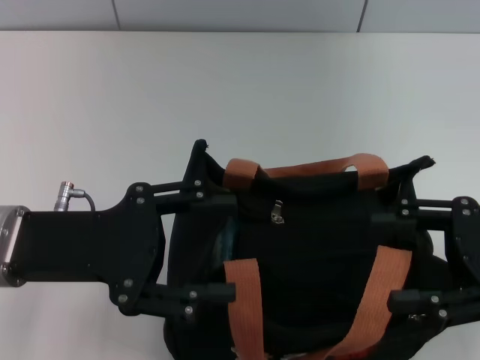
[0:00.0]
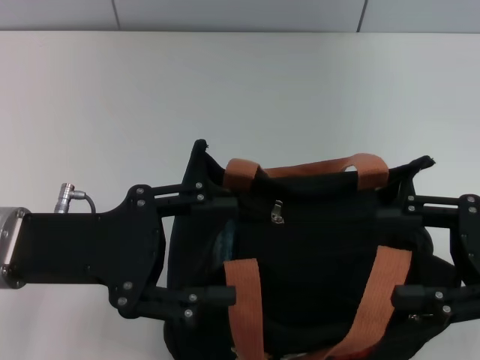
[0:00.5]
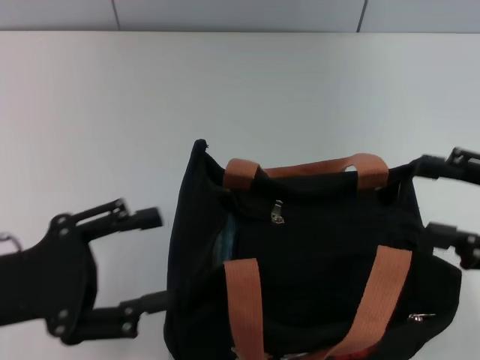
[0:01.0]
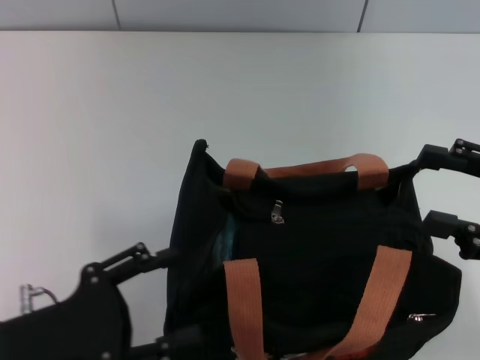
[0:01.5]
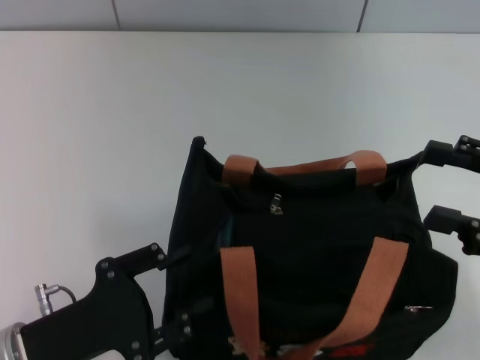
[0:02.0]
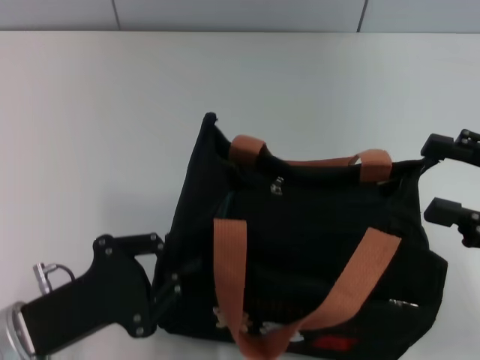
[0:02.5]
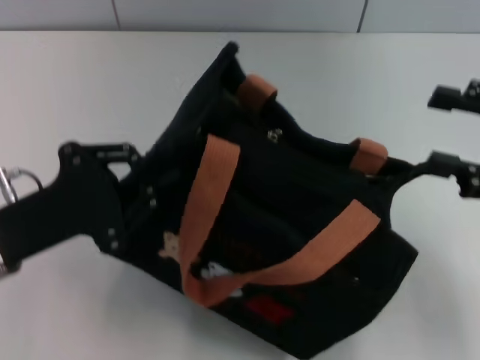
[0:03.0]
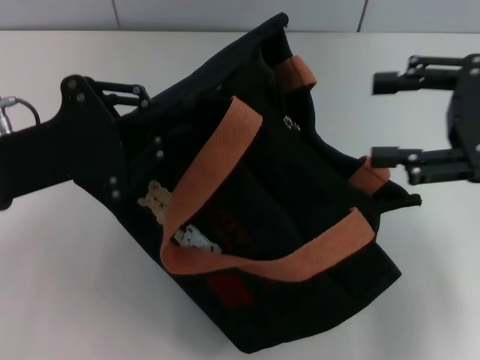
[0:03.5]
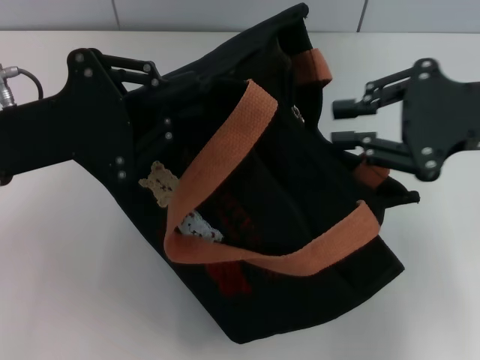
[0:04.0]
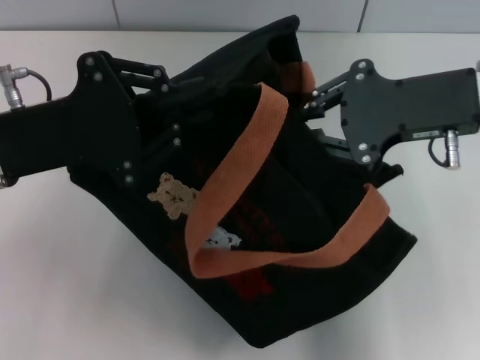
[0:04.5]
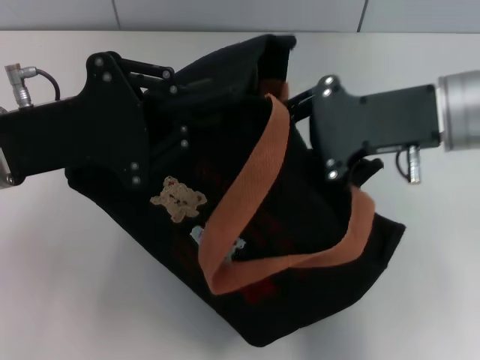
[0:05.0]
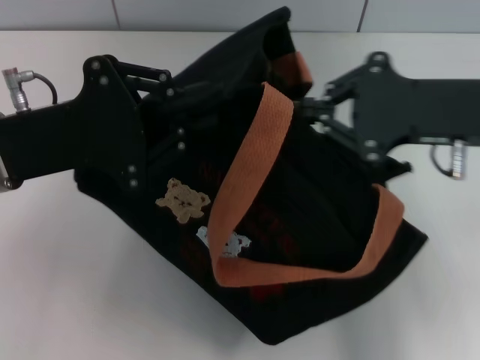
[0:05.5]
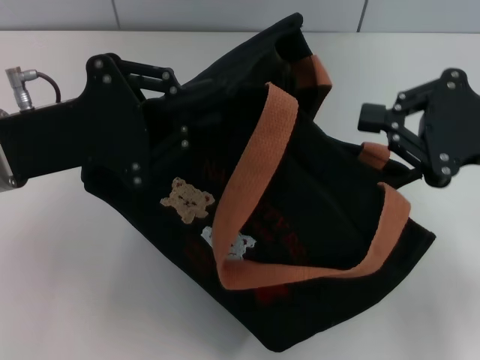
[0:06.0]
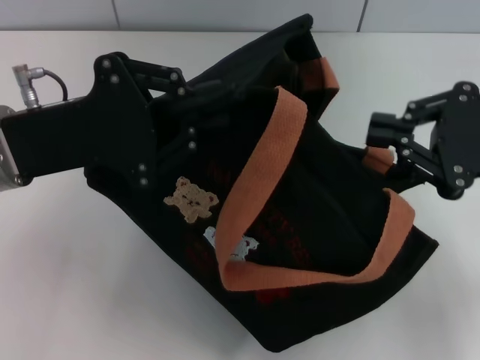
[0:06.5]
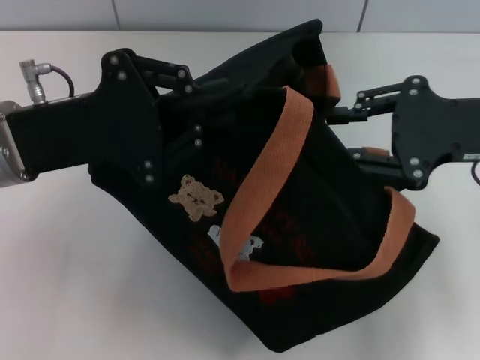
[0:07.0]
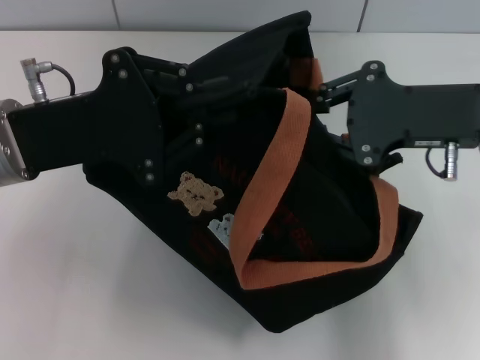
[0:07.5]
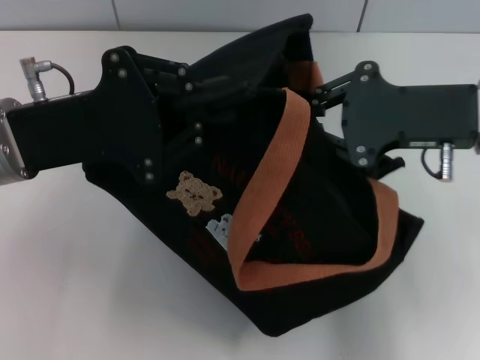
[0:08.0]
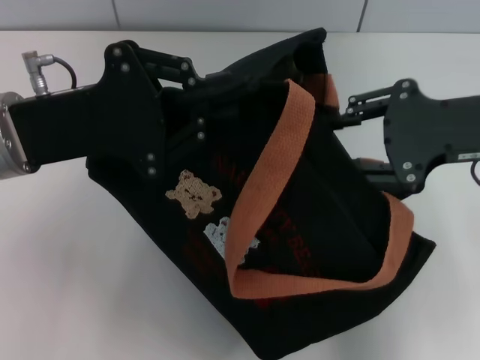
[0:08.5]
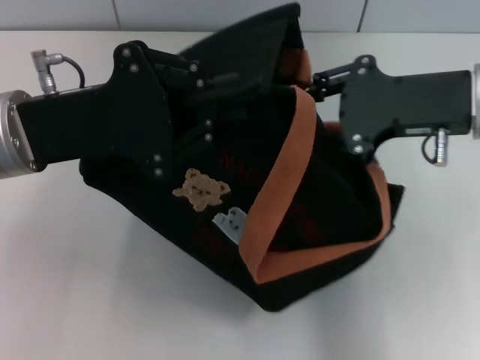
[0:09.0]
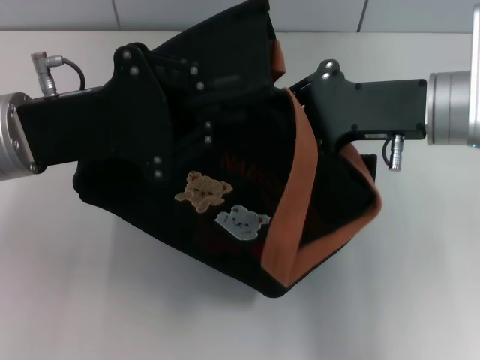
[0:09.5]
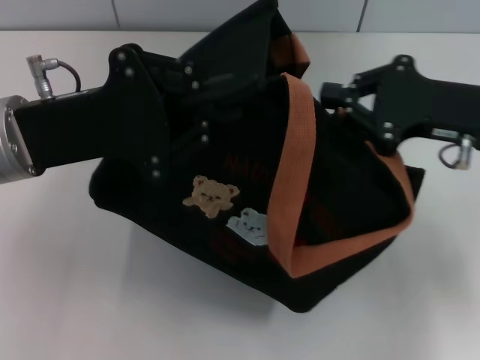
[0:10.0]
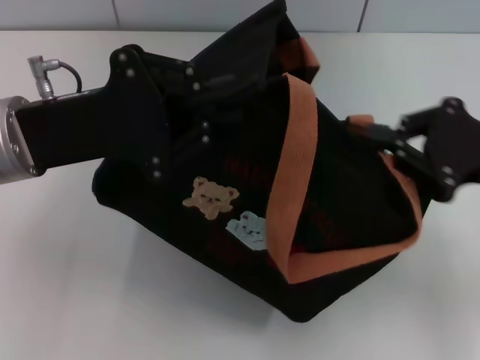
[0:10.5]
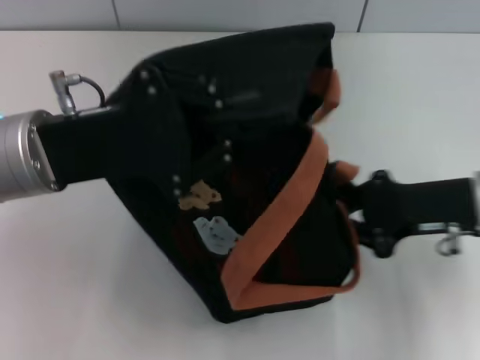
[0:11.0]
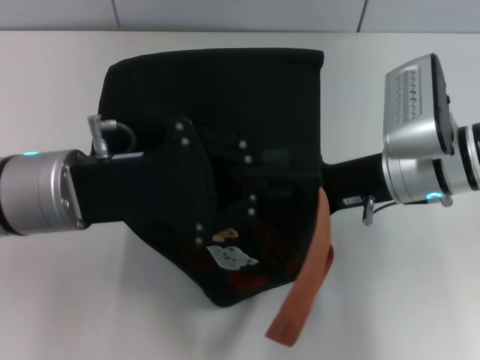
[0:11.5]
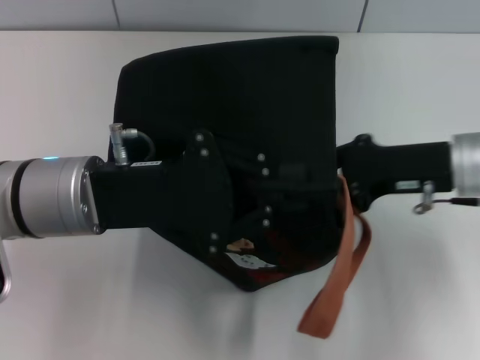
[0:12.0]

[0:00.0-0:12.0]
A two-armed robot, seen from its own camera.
0:00.0 to 0:02.0: The left gripper shifts some 15 cm downward and backward.
0:02.0 to 0:04.0: The right gripper is displaced upward, forward and to the left by roughly 10 cm. Meanwhile the left gripper is displaced upward and forward by some 20 cm, and closes.
0:04.0 to 0:06.0: The right gripper moves roughly 5 cm to the left and comes back, and closes its fingers.
0:06.0 to 0:08.0: The right gripper moves to the left, about 5 cm.
0:08.0 to 0:10.0: The right gripper opens, then closes once more.
0:10.0 to 0:12.0: The right gripper swings left and right, roughly 10 cm each way, with 2 reversals. Meanwhile the left gripper ends up roughly 5 cm from where it was.

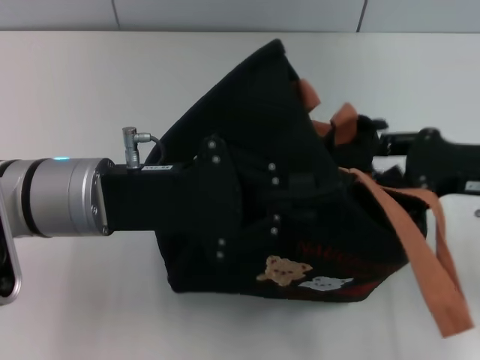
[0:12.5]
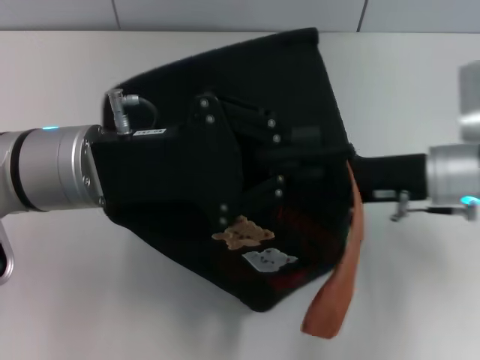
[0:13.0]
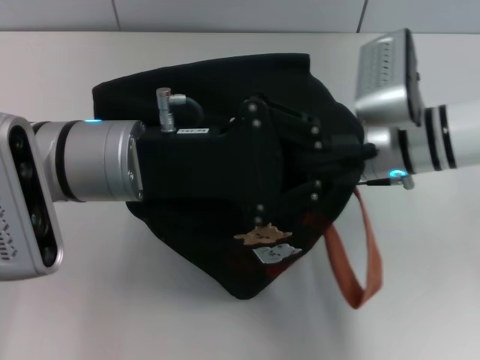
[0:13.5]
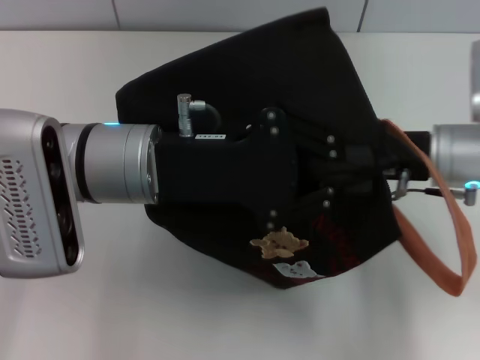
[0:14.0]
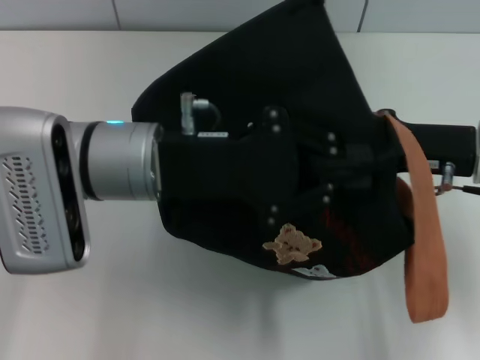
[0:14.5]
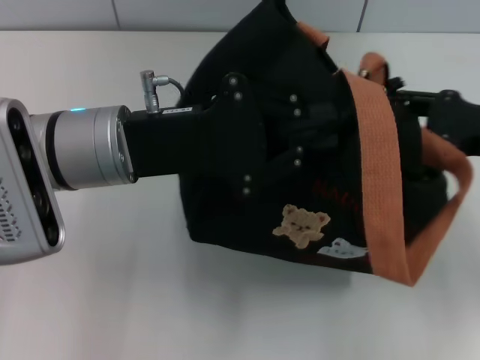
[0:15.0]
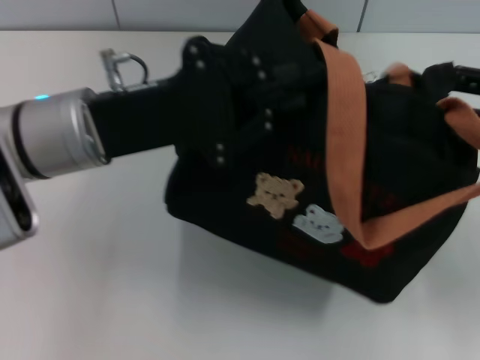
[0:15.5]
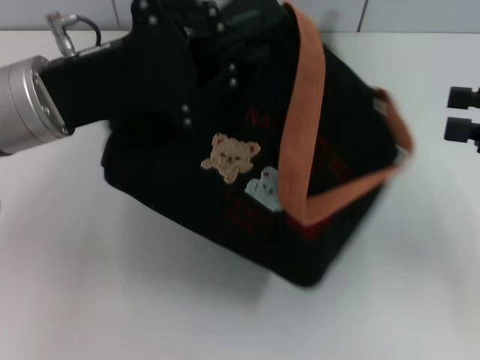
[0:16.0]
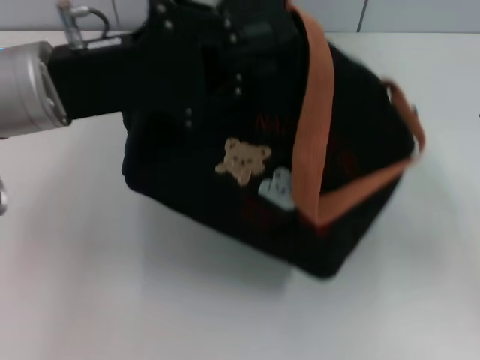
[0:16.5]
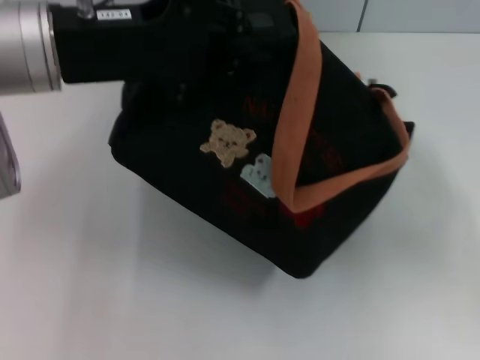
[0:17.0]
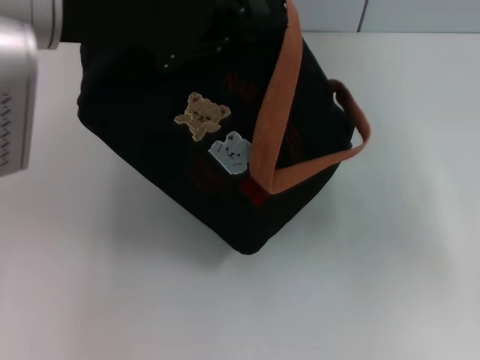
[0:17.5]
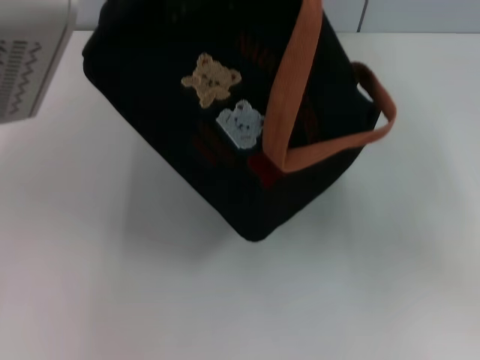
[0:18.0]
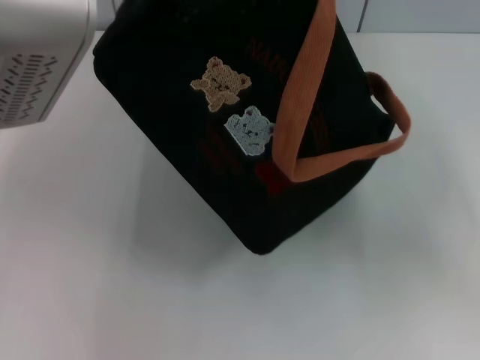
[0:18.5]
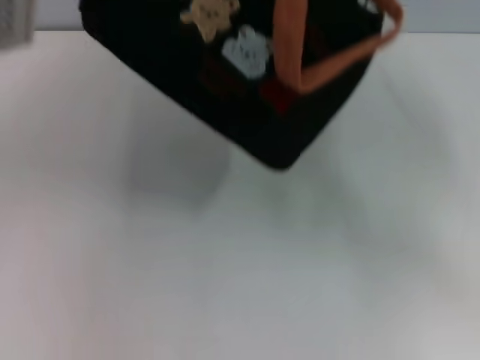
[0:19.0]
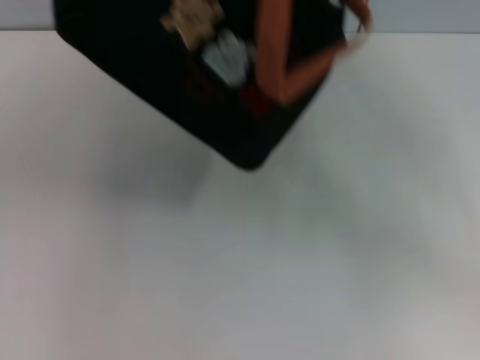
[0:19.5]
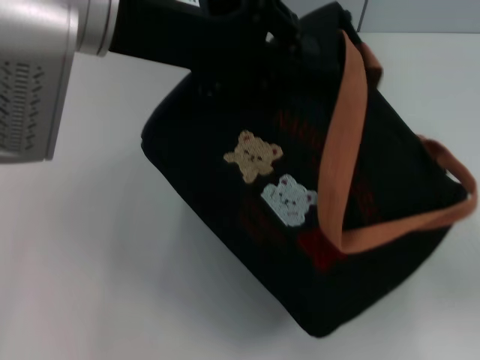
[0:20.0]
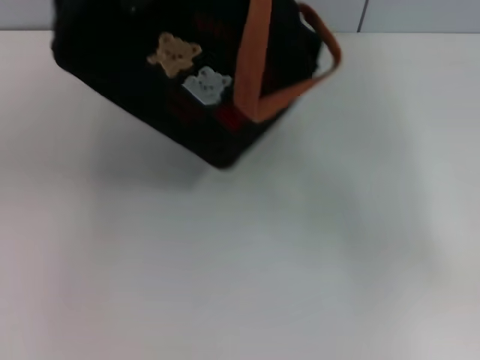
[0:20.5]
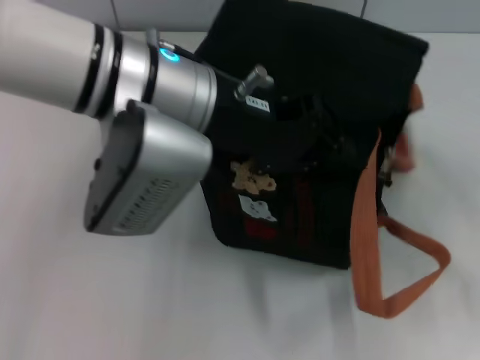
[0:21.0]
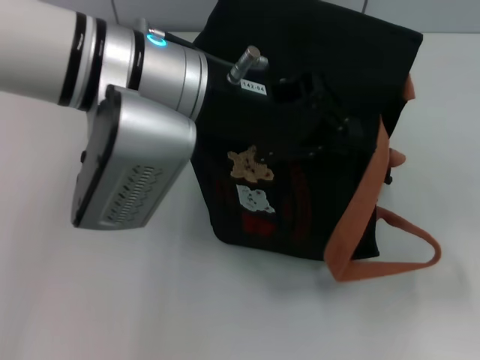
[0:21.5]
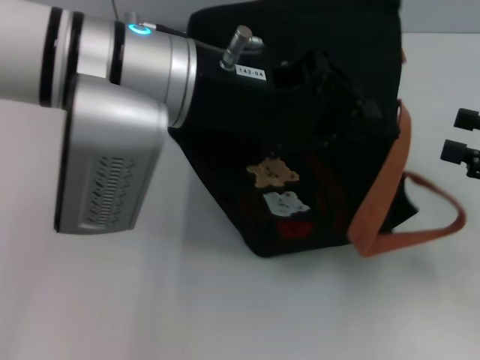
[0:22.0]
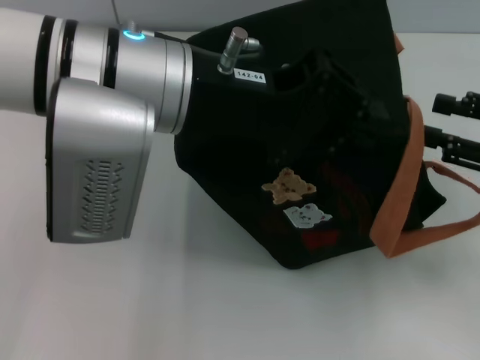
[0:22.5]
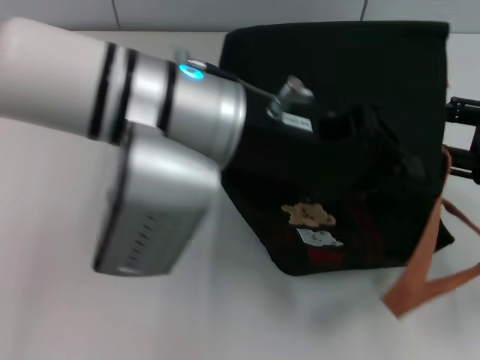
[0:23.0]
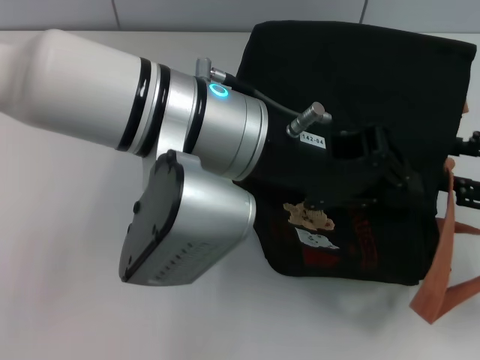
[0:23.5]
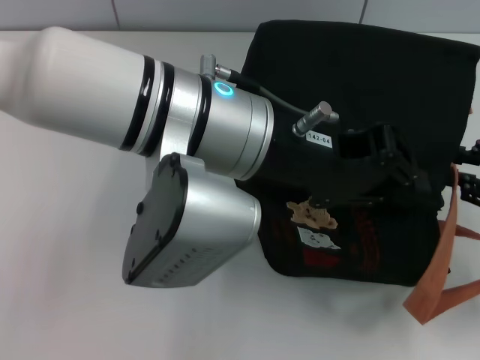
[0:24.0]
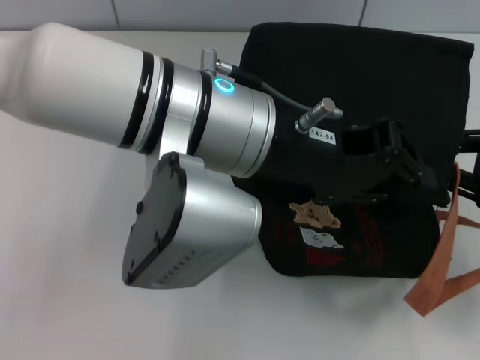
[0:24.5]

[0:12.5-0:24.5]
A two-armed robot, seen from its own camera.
0:12.5 to 0:14.5: The right gripper travels to the left and back again, some 15 cm each way.
0:14.5 to 0:16.5: The right gripper moves to the right and upward, roughly 15 cm; the left gripper goes approximately 5 cm to the left.
0:16.5 to 0:18.5: The left gripper travels upward and to the right by roughly 15 cm.
0:18.5 to 0:20.5: The left gripper swings left and right, approximately 5 cm each way, with 2 reversals.
0:20.5 to 0:22.5: The left gripper shifts about 10 cm to the right and downward. Meanwhile the right gripper changes place by approximately 5 cm.
0:22.5 to 0:24.5: The left gripper changes place by roughly 5 cm. The right gripper closes.

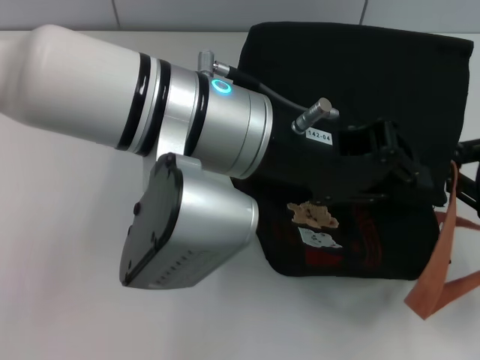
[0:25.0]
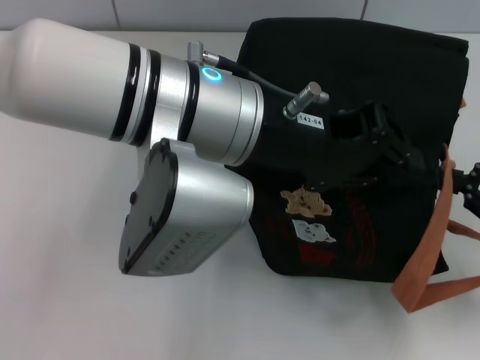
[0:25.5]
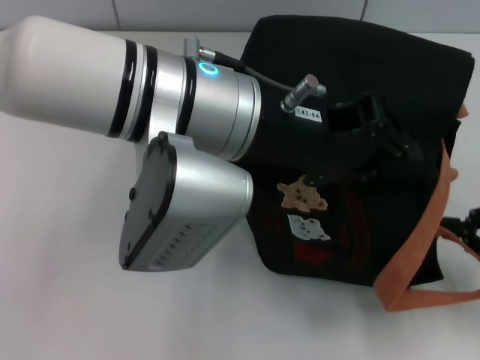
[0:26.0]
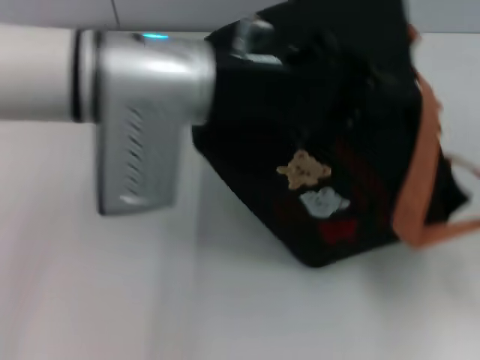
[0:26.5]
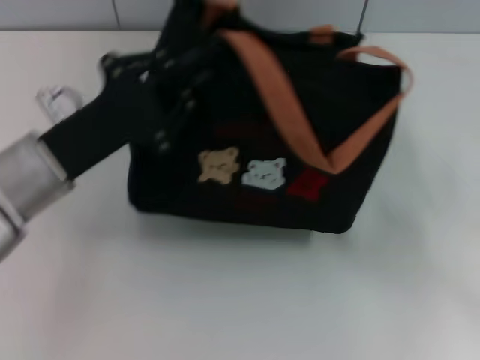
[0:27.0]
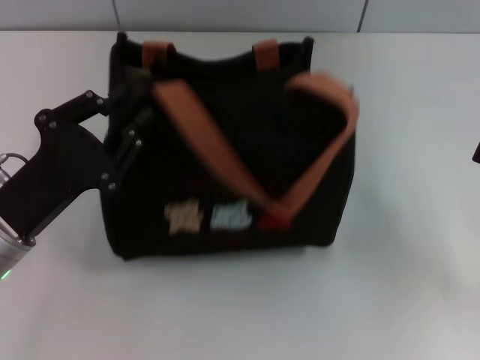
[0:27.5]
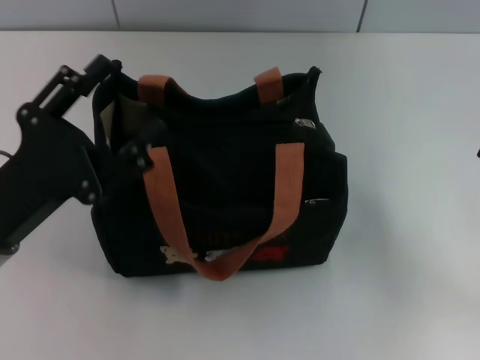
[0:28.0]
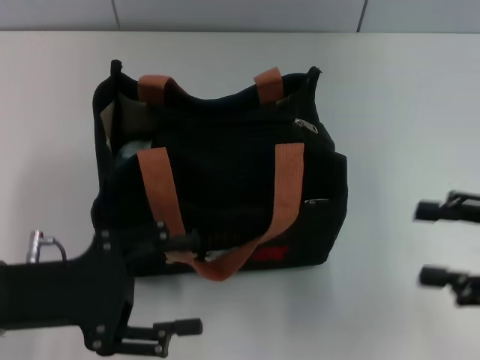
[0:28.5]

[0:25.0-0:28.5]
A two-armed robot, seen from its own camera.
Step, 0:26.5 to 0:27.5: Grab the bag with your left hand.
0:25.0 to 0:27.0: The right gripper travels to the right by approximately 5 cm, and opens. The left gripper moves to the left and downward, roughly 20 cm.
0:27.0 to 0:28.5: The right gripper shifts roughly 5 cm to the left, while the left gripper heads backward, covering about 5 cm, and opens its fingers.
